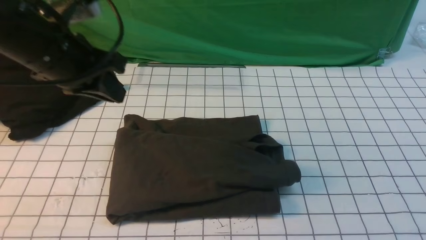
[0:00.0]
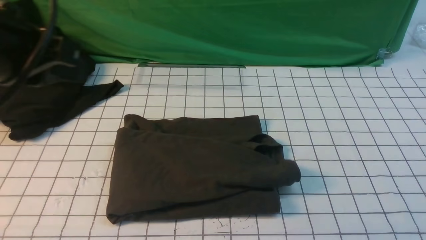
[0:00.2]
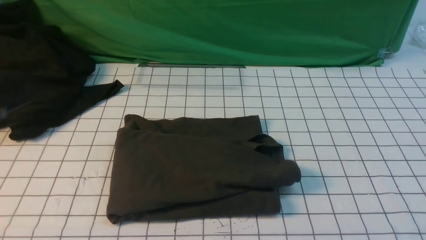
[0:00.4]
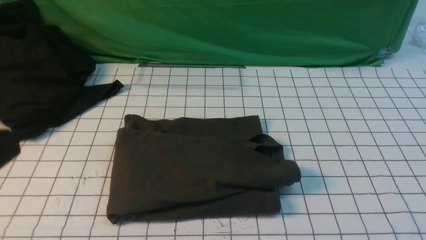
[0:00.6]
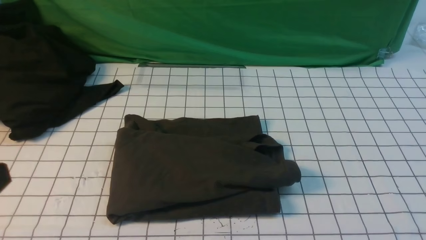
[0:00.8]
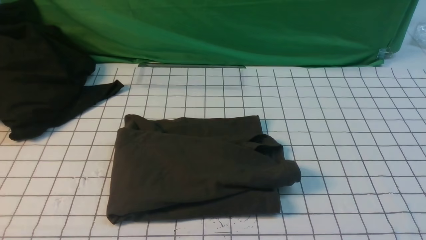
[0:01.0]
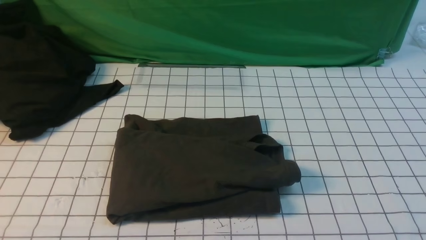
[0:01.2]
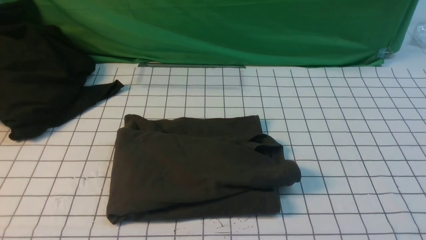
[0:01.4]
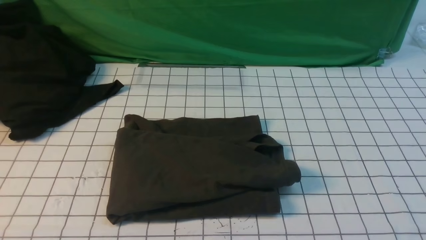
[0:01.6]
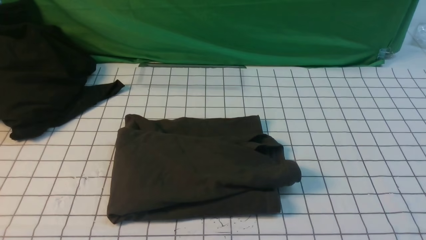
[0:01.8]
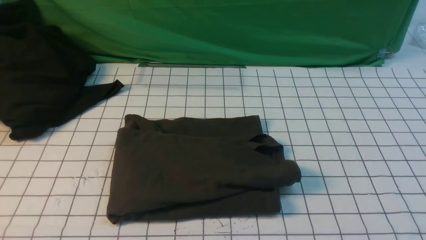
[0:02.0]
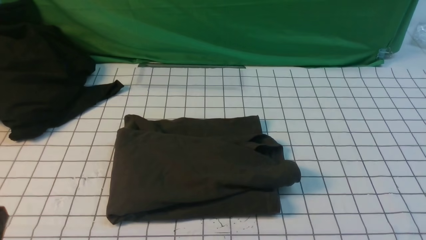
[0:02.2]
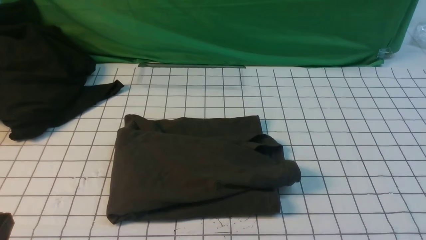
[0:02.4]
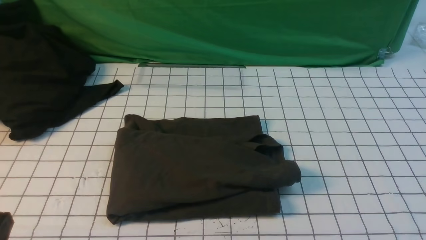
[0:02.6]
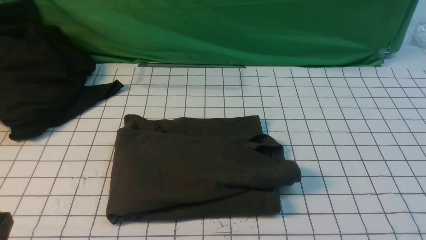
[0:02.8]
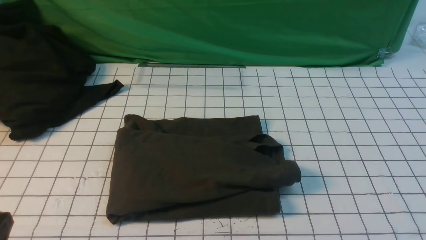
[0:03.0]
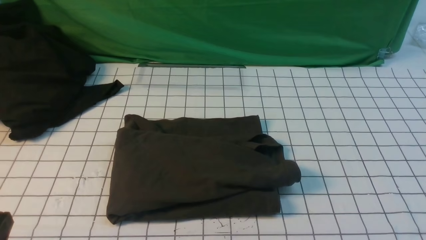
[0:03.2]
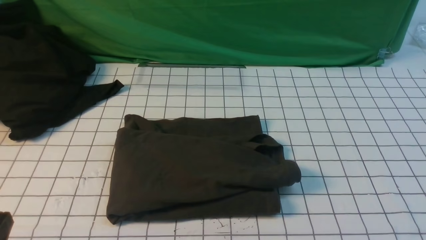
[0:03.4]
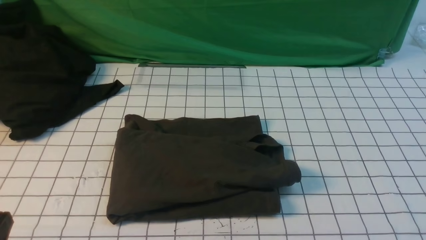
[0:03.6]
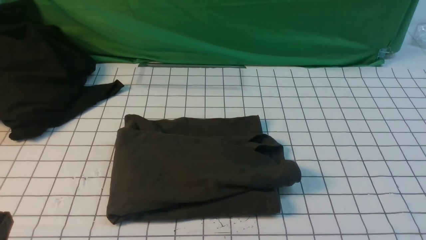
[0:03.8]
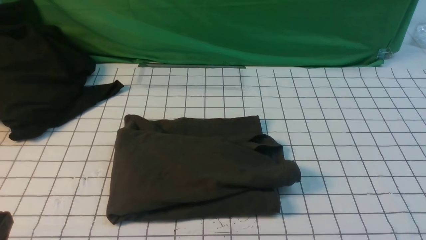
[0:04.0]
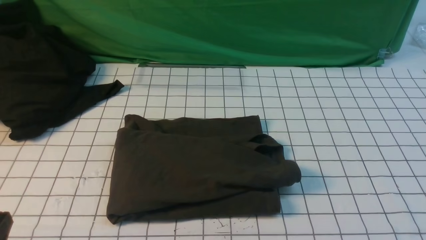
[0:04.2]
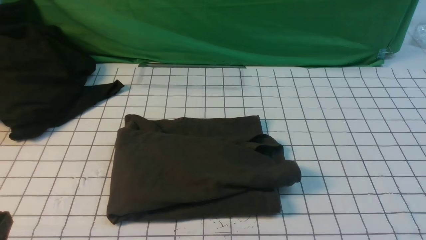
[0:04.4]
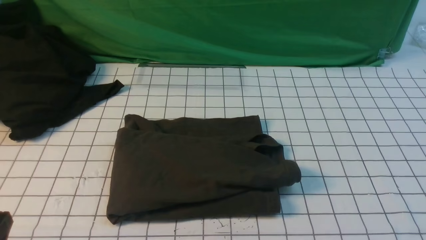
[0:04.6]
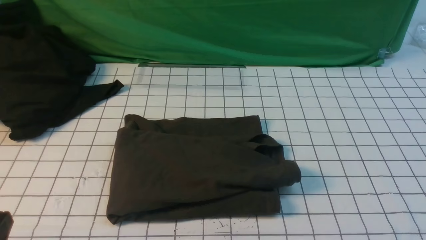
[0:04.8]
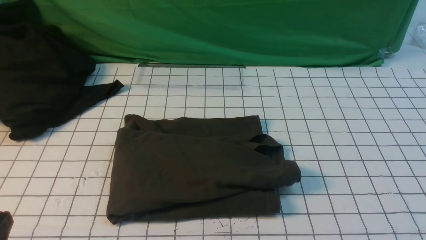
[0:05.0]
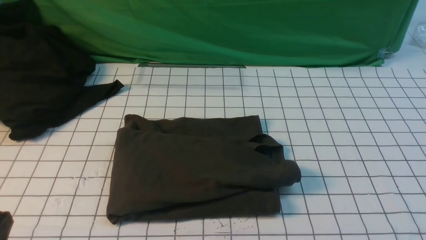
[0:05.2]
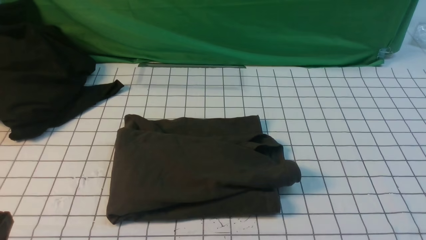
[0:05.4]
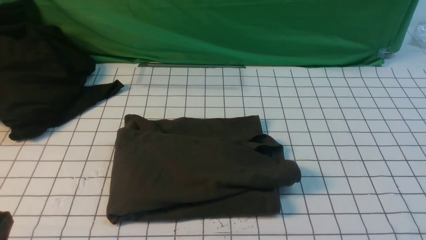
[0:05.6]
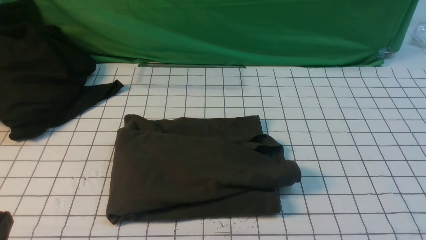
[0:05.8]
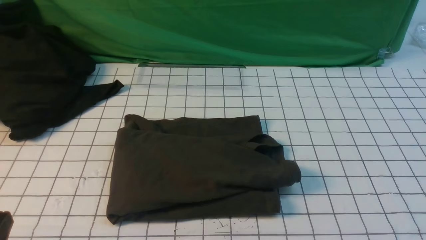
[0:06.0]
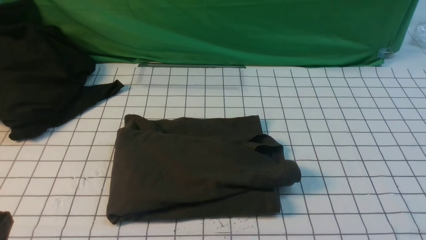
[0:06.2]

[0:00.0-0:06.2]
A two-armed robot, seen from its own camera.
0:00.0 to 0:01.6: The left gripper is displaced backward by about 25 cm.
0:04.6 to 0:06.2: Neither gripper changes place.

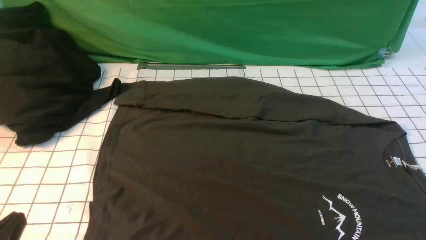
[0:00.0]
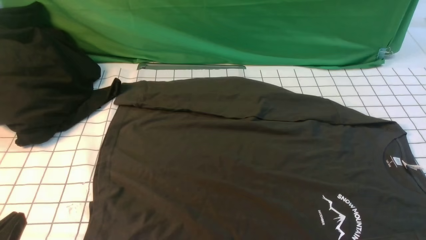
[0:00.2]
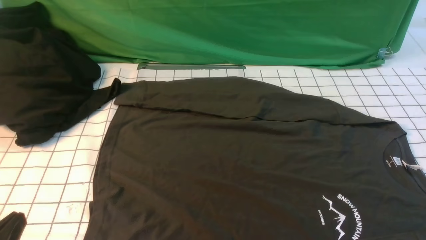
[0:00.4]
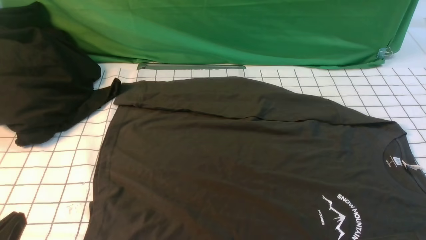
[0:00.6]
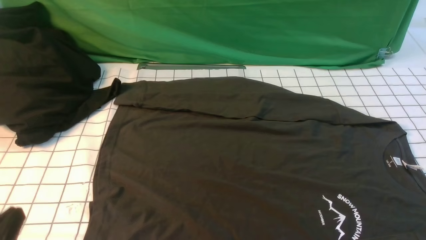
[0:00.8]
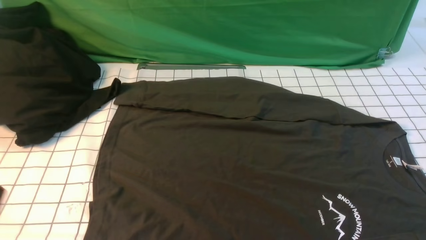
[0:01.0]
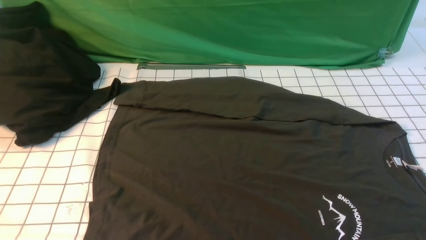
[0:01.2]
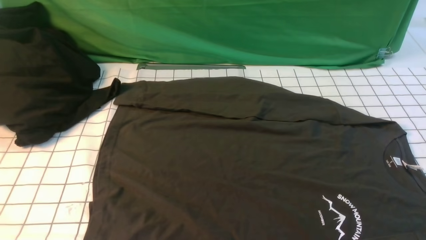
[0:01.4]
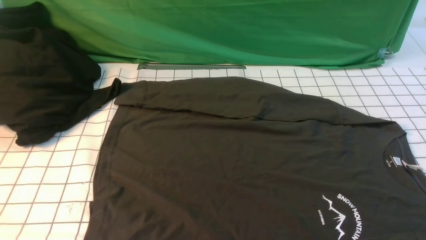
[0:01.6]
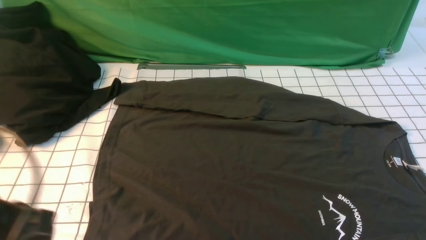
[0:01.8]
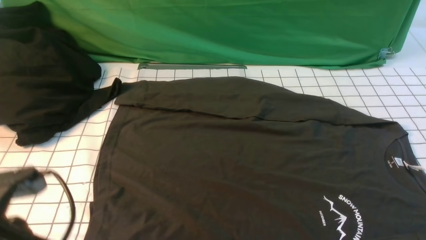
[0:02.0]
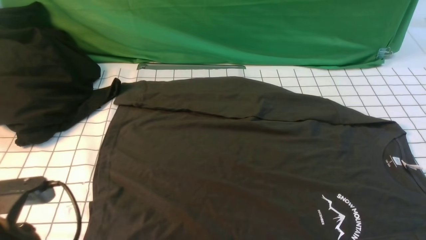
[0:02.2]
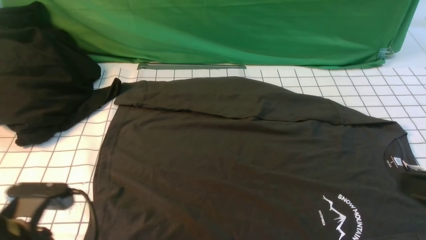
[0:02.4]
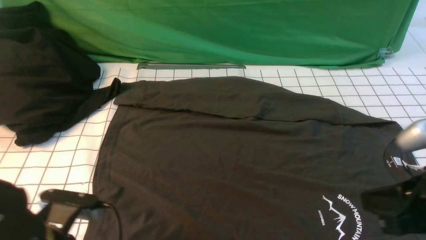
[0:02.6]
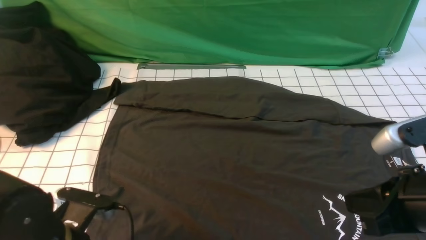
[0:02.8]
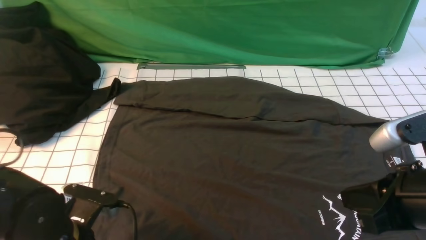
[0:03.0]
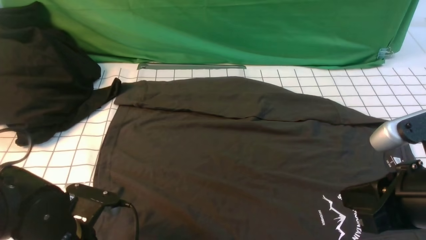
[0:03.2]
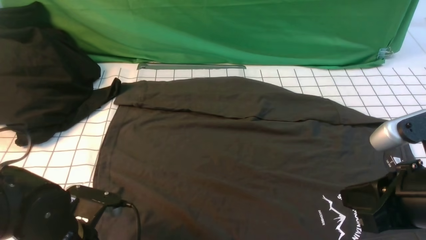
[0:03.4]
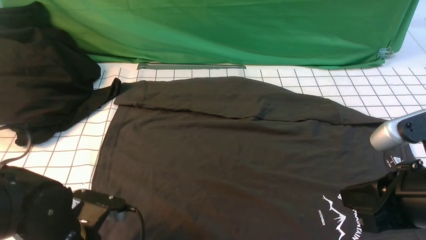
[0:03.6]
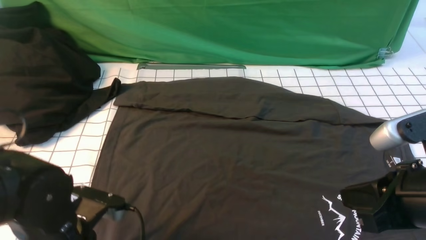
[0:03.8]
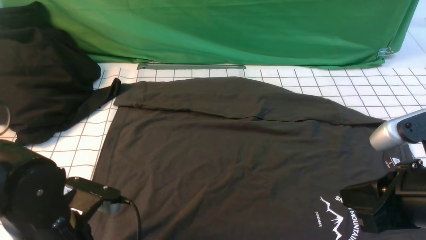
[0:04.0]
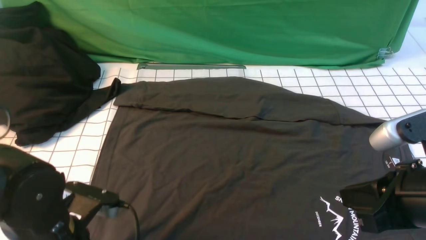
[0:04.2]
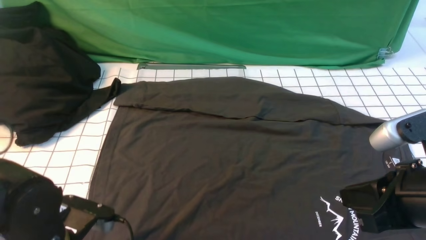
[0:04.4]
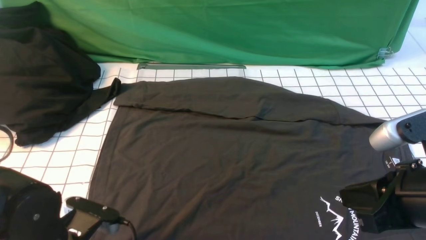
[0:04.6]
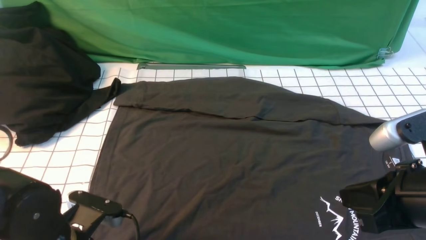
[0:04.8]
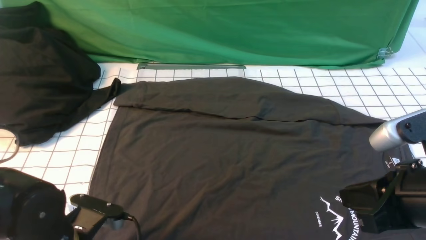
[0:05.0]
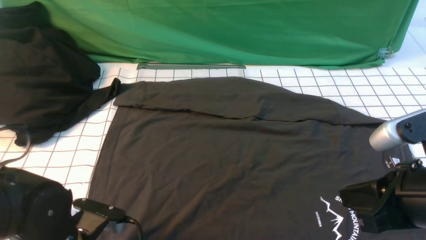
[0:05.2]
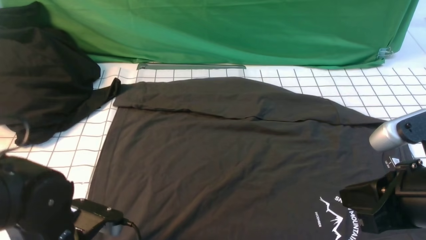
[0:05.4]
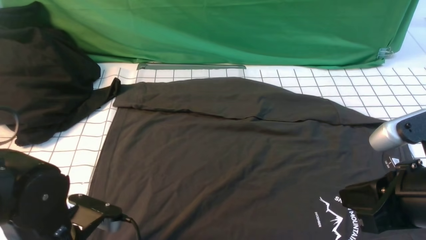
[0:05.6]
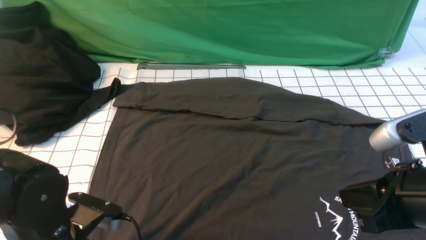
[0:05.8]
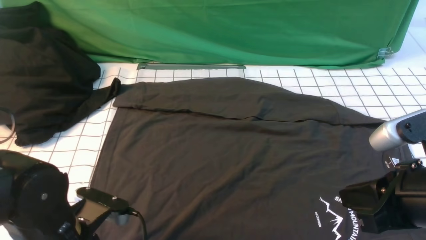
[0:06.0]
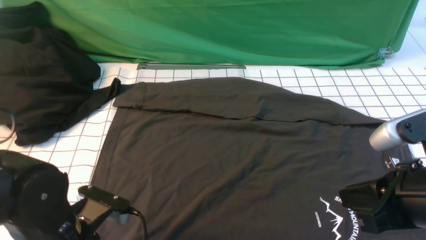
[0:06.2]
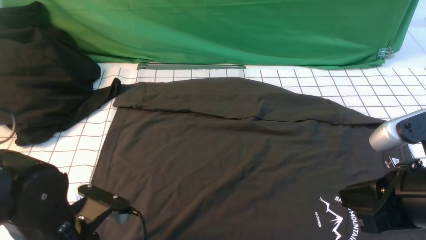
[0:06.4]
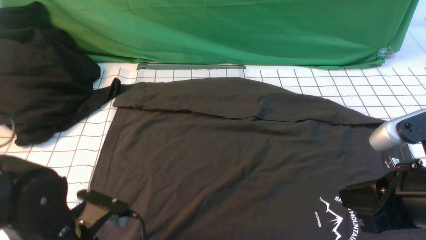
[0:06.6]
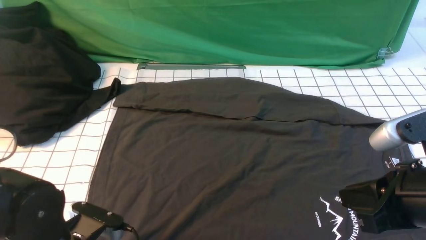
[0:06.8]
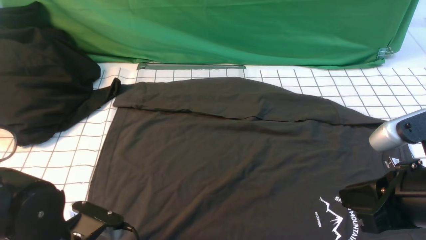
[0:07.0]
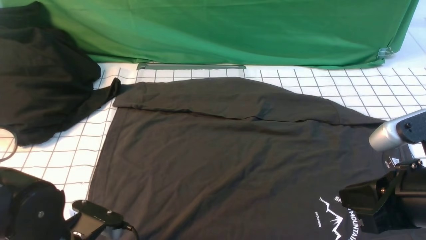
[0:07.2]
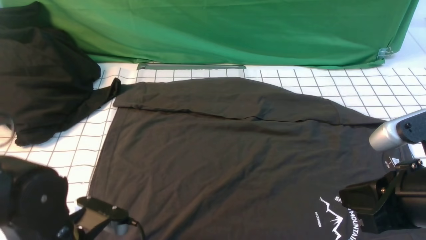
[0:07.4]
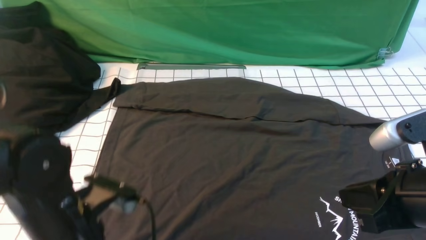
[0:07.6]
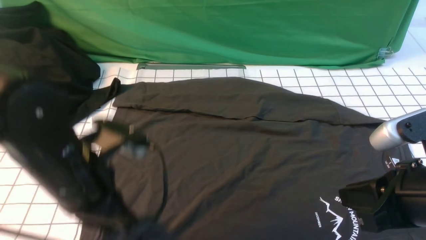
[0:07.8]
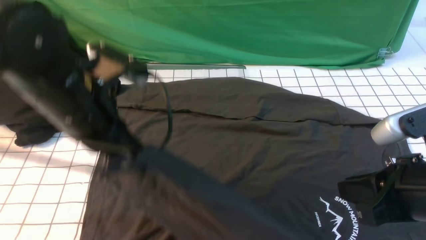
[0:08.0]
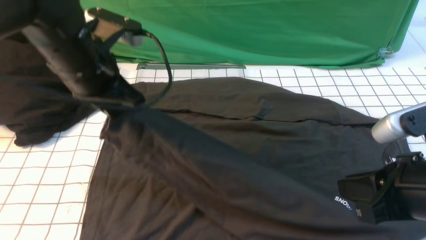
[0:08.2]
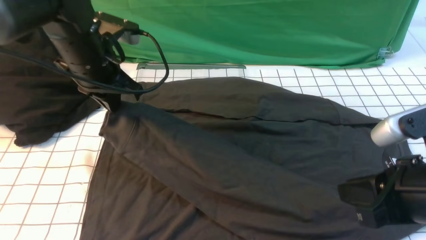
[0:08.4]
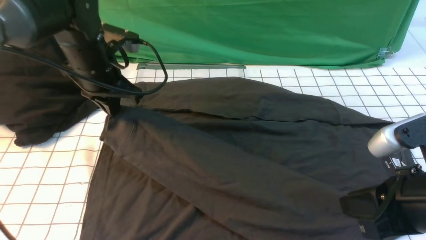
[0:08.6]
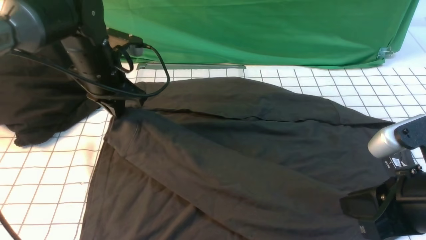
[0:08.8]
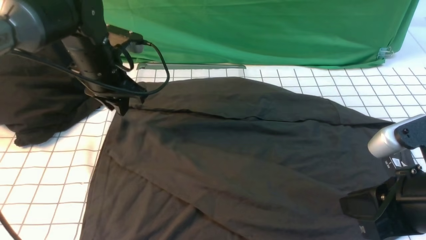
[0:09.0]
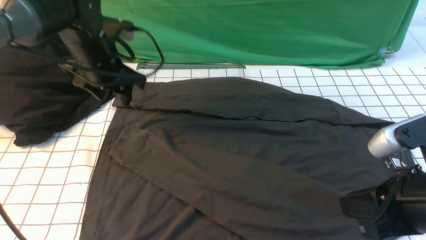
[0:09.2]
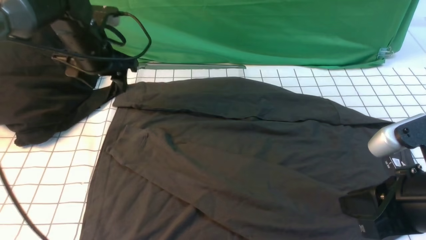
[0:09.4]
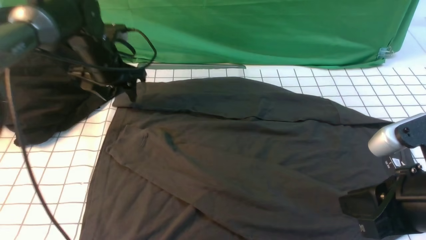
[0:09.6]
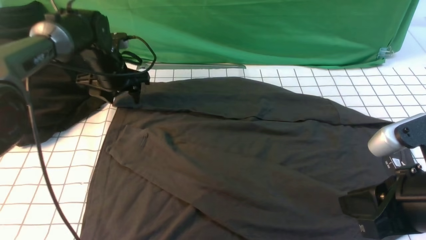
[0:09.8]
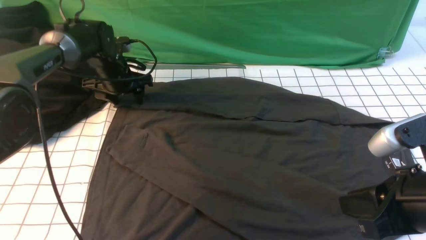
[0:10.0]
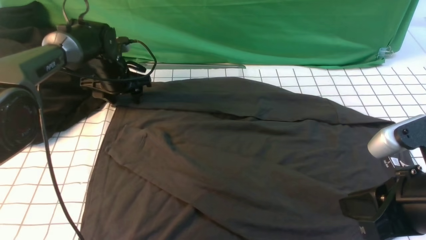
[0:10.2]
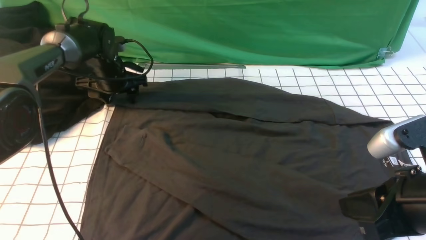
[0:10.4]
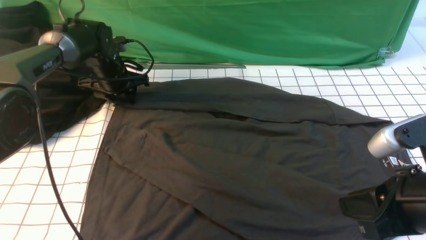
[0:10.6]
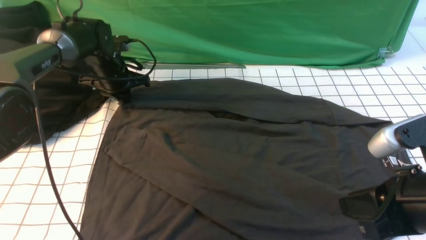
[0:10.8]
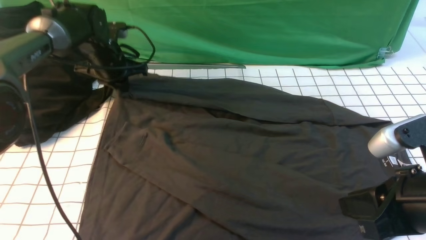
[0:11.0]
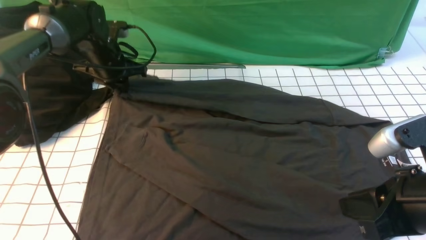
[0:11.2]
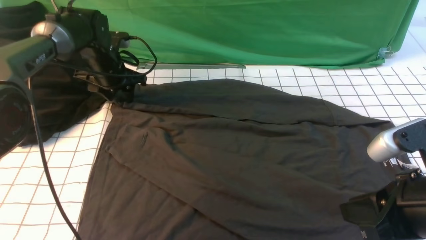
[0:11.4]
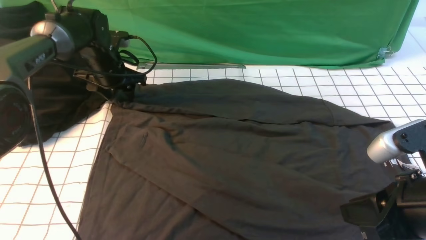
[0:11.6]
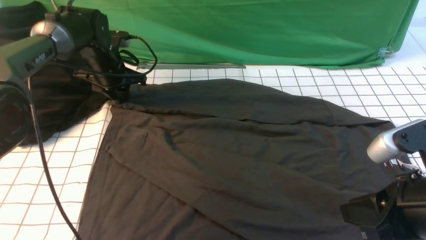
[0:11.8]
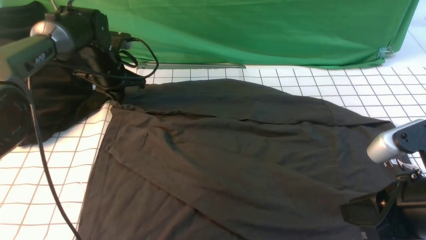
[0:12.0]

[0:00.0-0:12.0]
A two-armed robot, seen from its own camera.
Step, 0:00.0 to 0:07.0: use the left arm to clamp the cuff closest to it.
Step, 0:07.2 to 0:09.0: use the left arm to drag and place the cuff at the centered position on the left edge of the fabric.
0:01.6 to 0:03.0: The right gripper moves to the left, forward and upward, roughly 15 cm, and closes; the left gripper is displaced downward and forward by about 20 cm, and opens its fingers.
0:03.0 to 0:04.4: The left gripper closes and opens again.
0:04.4 to 0:06.0: The left gripper closes, then reopens.
0:06.0 to 0:07.6: The left gripper closes its fingers.
0:07.6 to 0:09.0: The left gripper is displaced forward by some 25 cm, and opens its fingers.
0:09.0 to 0:10.4: The left gripper travels forward and downward by approximately 15 cm.
0:10.4 to 0:12.0: The left gripper closes up.
